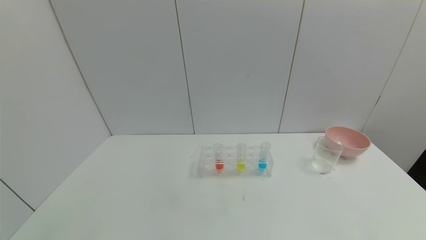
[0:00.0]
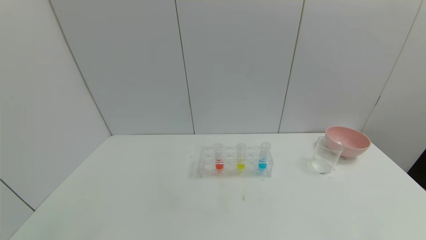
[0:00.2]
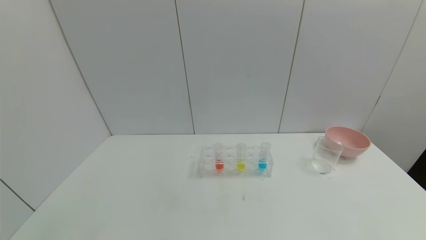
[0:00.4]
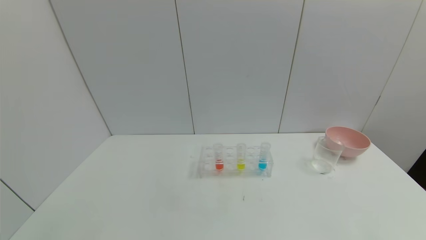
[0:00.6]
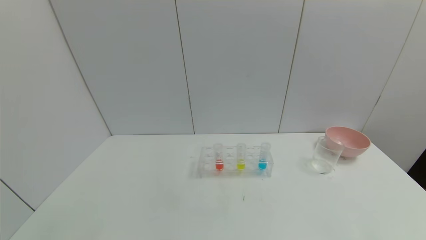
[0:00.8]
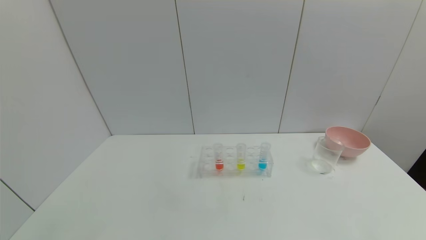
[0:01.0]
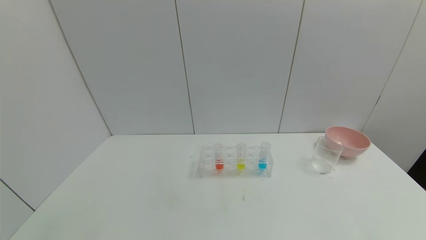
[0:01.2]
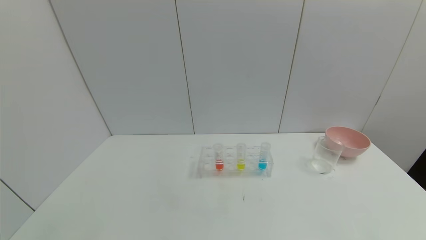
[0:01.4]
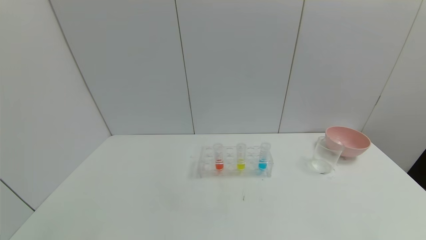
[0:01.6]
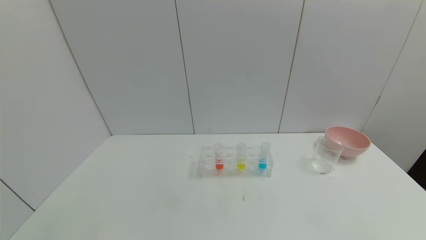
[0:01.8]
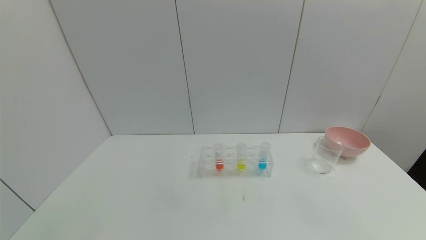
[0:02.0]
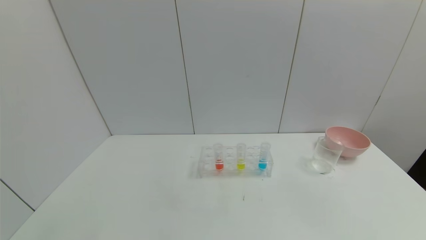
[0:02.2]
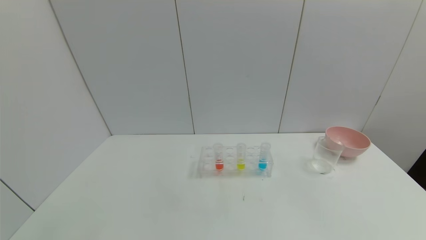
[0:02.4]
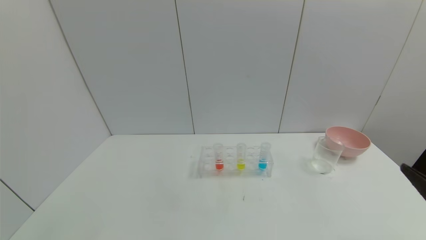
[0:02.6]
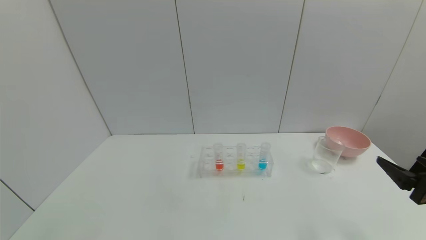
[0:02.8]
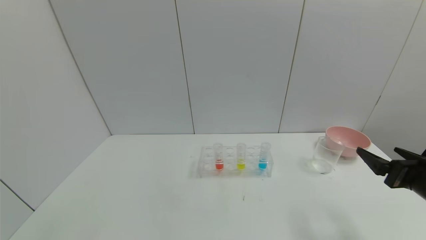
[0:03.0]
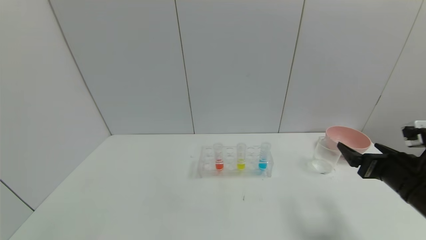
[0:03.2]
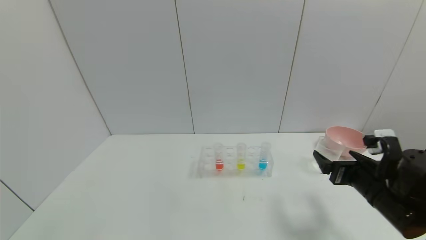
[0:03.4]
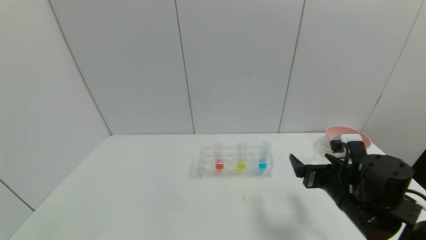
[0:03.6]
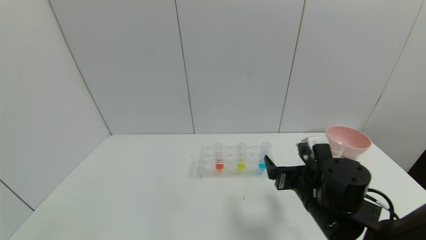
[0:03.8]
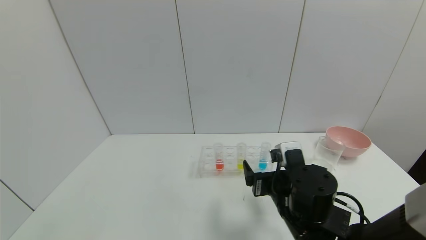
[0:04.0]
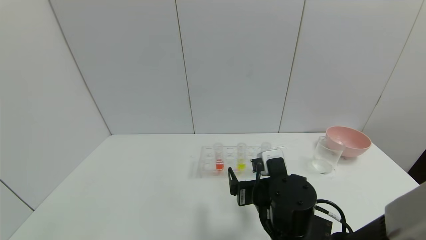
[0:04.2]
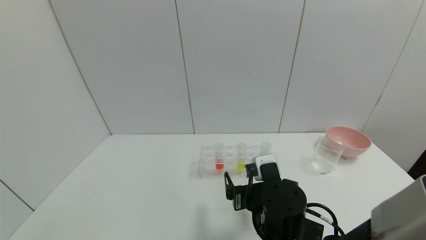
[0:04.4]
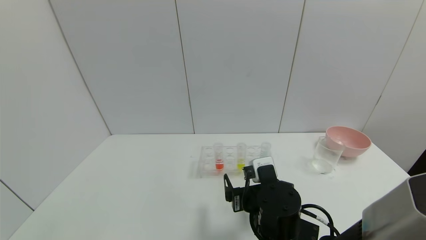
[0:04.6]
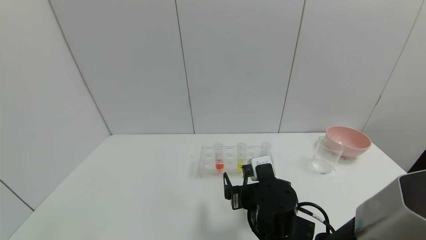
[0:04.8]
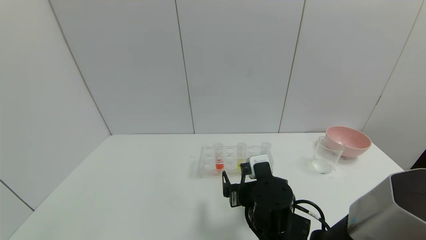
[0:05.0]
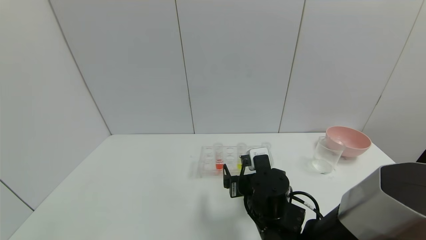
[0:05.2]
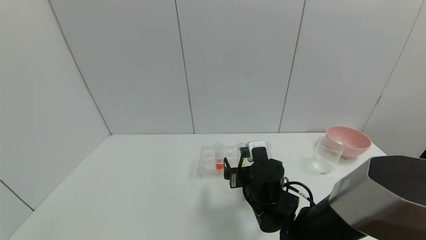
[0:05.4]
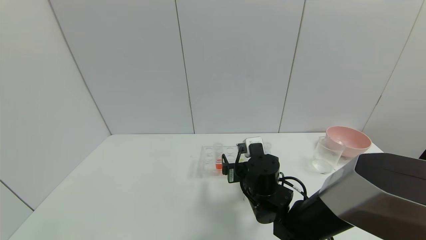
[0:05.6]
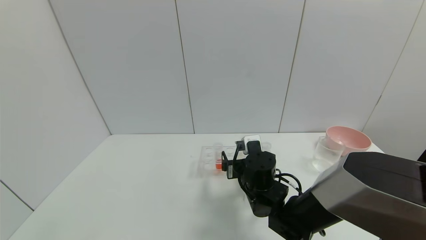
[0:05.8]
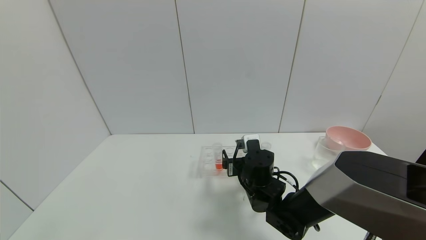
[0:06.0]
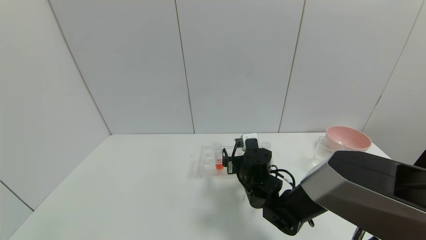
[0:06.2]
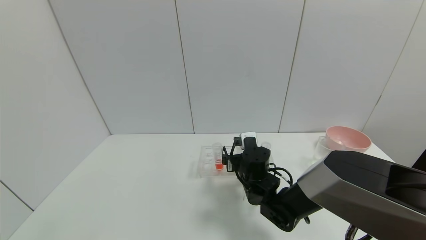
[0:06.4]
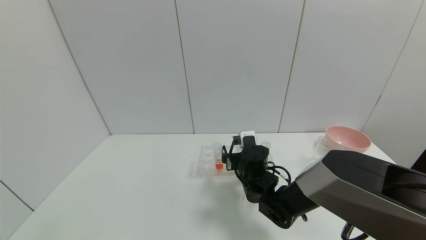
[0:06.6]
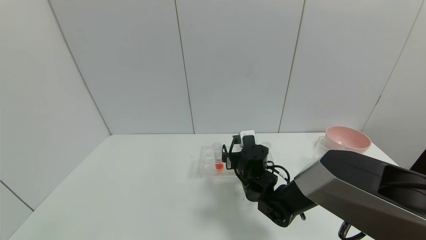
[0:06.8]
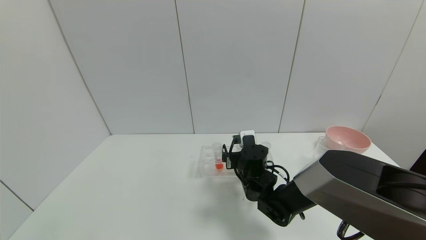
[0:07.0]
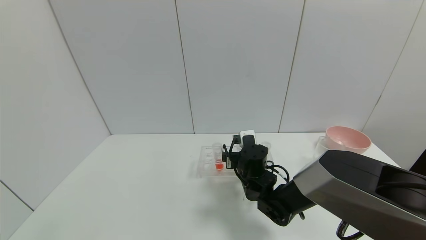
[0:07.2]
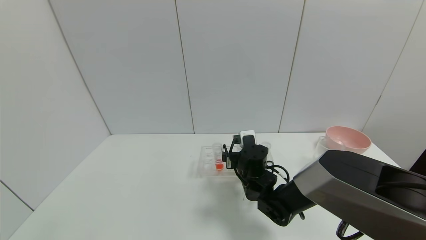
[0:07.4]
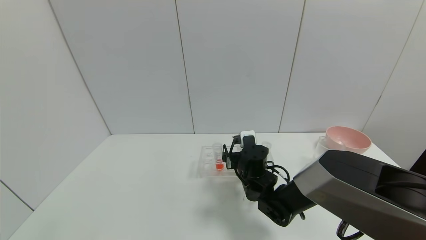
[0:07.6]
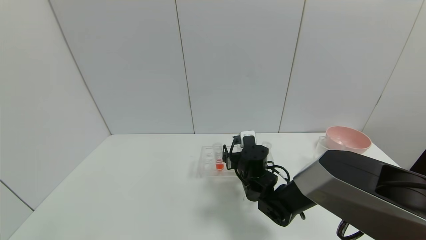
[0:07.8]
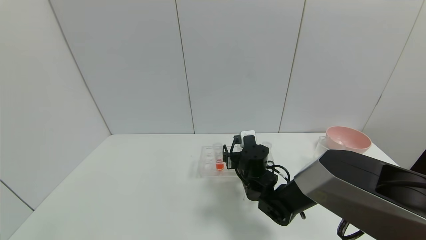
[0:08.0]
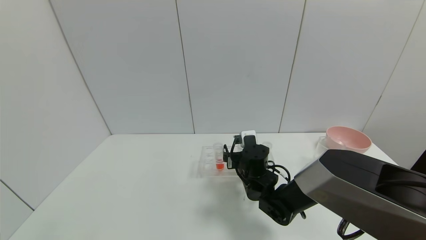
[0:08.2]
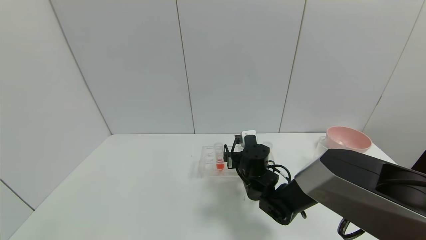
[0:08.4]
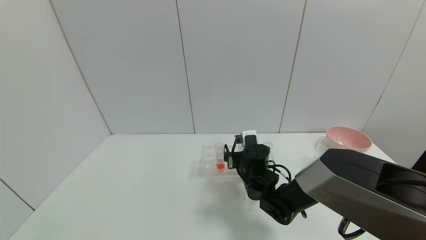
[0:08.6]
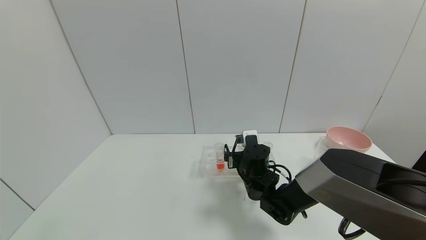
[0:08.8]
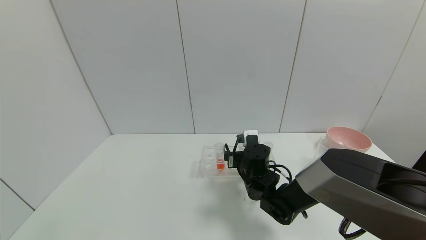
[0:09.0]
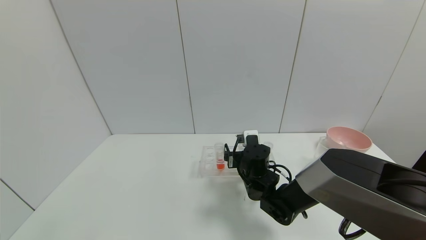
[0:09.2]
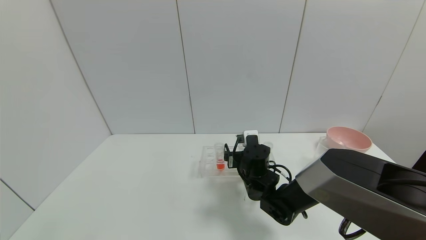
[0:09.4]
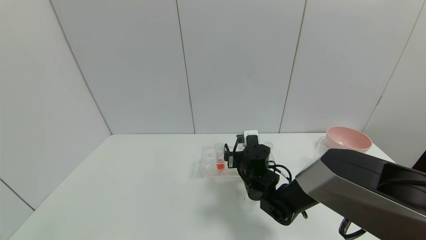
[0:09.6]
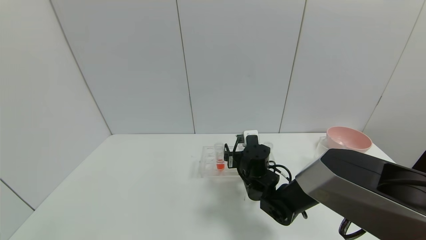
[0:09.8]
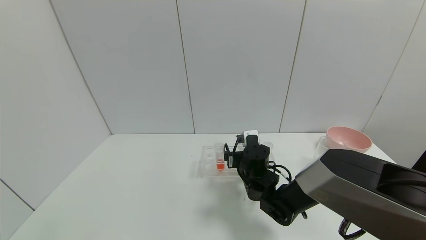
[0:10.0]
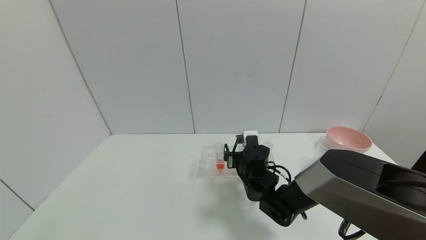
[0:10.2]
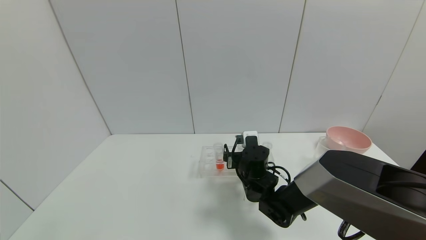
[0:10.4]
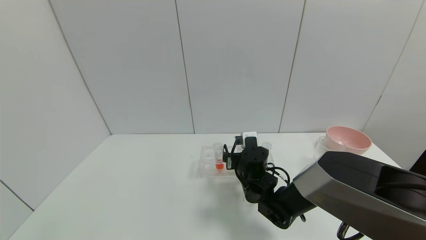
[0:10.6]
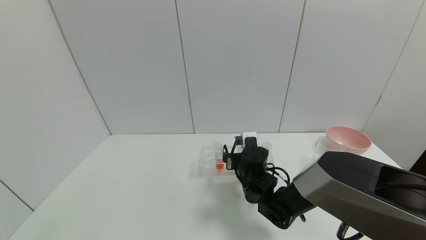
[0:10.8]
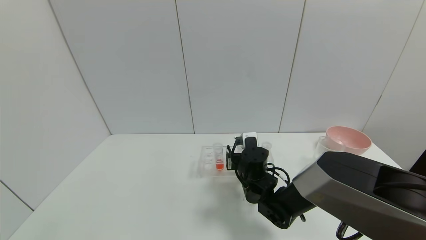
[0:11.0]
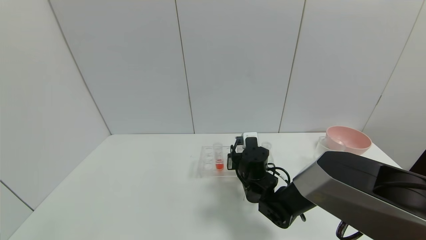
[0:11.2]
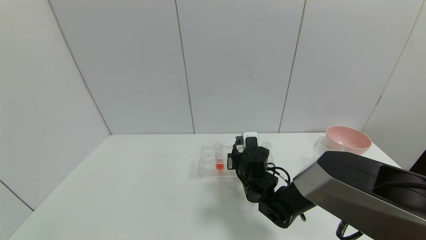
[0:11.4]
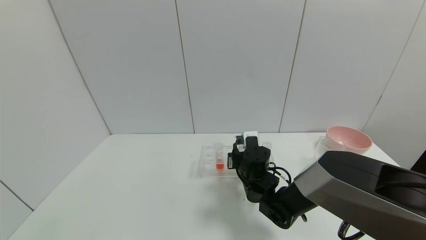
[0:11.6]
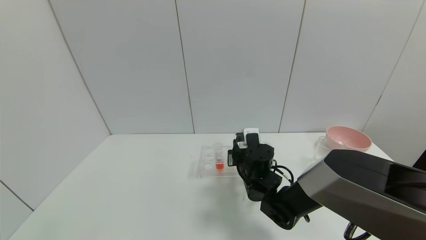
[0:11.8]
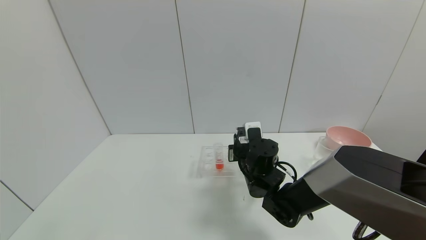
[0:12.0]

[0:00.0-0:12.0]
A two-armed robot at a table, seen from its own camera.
Task of the whole recording: pick up the test tube with yellow pigment and the test tube with blue pigment by grippers and pour them into the beaker.
Step, 0:00.0 to 0:11.2: Grasp the yellow reagent with the right gripper.
0:00.0 to 0:01.6: The two grippers keep their place.
0:01.6 to 0:03.0: The right gripper moves forward, about 20 cm.
0:03.0 to 0:04.4: The right gripper is displaced to the left by roughly 25 cm.
0:04.4 to 0:06.0: The right gripper goes approximately 10 cm forward.
0:06.0 to 0:10.4: The grippers stay close to where they were, moving slightly.
0:10.4 to 0:12.0: The right gripper closes up.

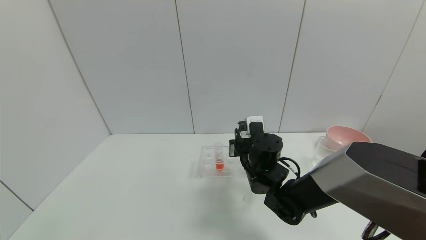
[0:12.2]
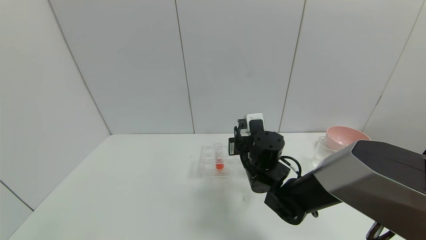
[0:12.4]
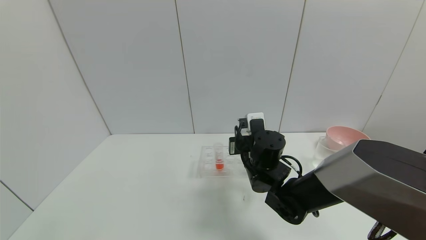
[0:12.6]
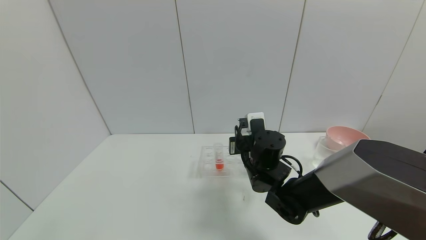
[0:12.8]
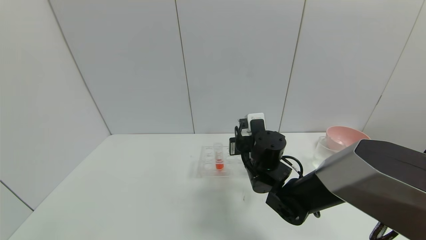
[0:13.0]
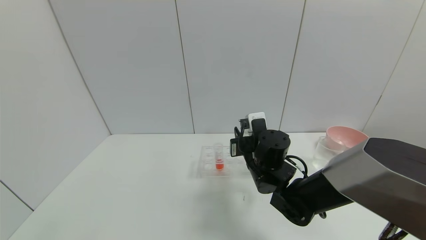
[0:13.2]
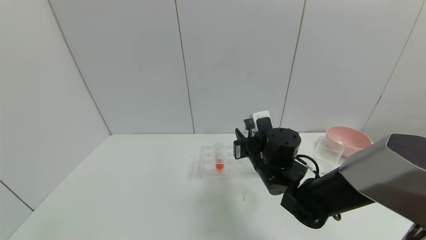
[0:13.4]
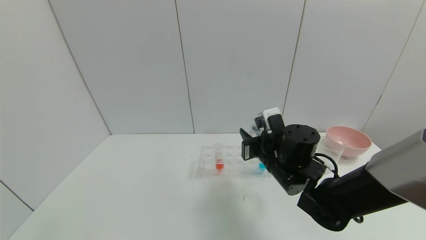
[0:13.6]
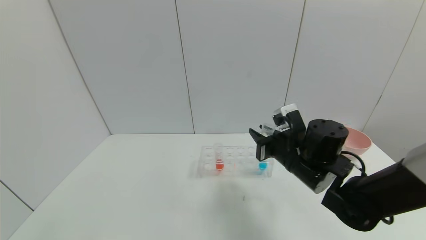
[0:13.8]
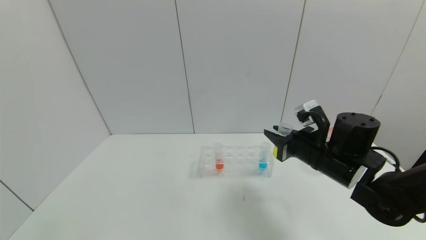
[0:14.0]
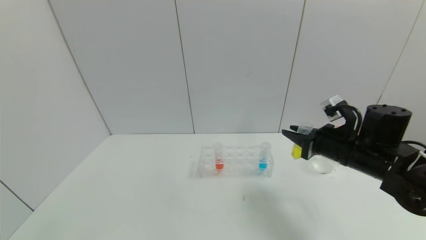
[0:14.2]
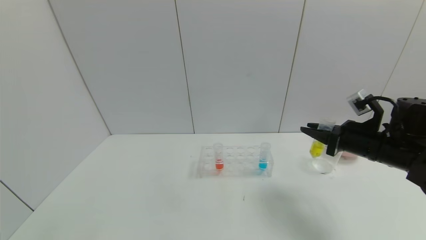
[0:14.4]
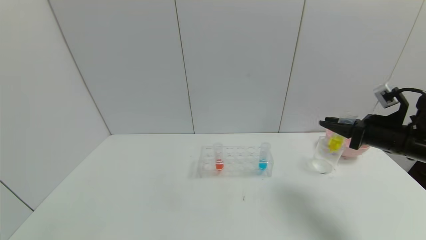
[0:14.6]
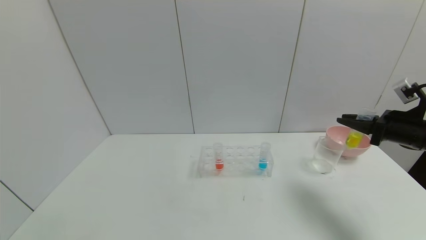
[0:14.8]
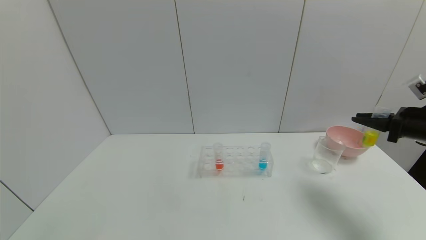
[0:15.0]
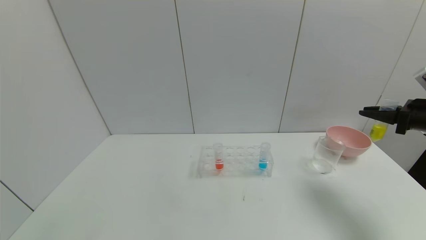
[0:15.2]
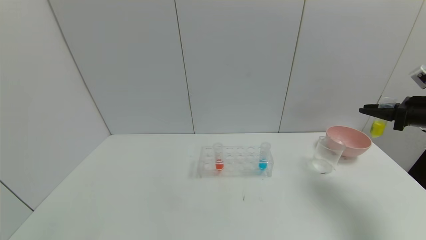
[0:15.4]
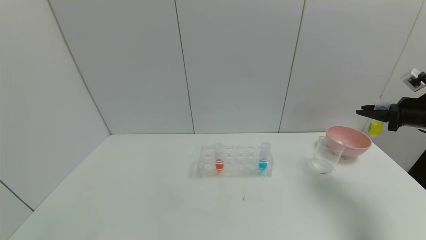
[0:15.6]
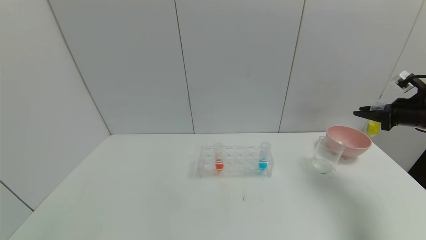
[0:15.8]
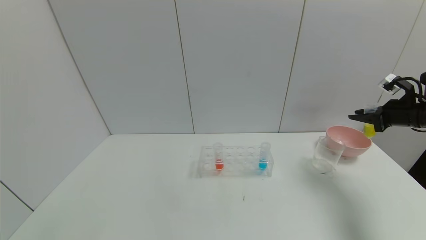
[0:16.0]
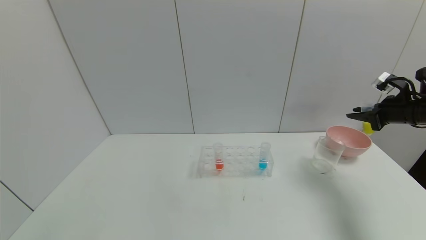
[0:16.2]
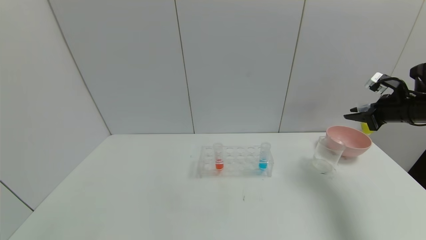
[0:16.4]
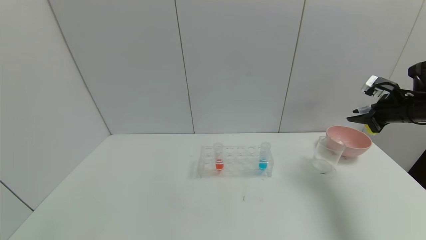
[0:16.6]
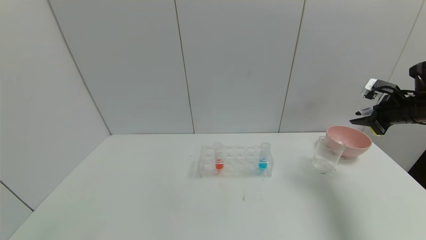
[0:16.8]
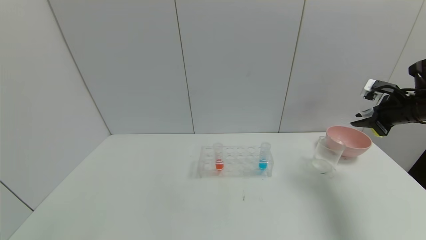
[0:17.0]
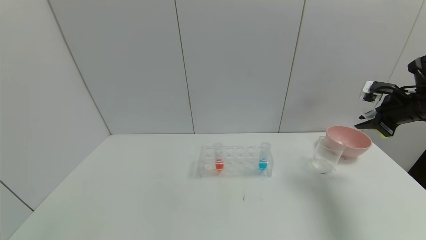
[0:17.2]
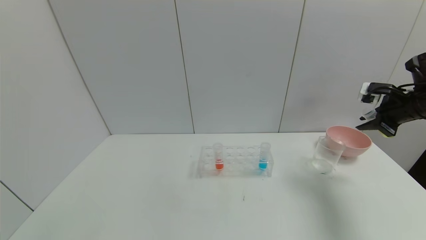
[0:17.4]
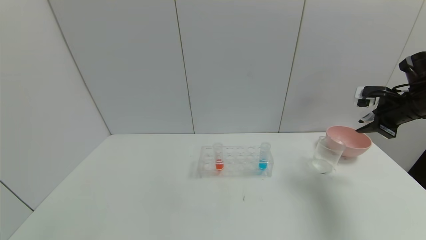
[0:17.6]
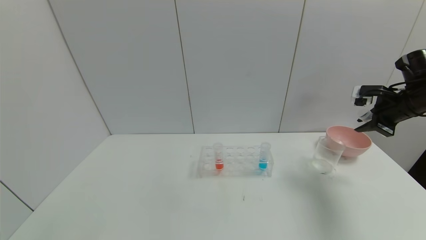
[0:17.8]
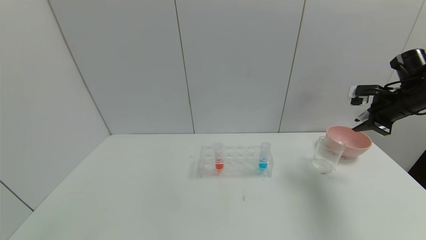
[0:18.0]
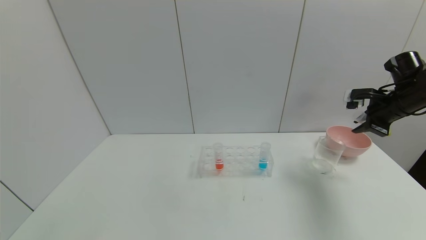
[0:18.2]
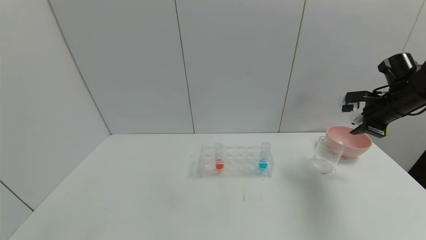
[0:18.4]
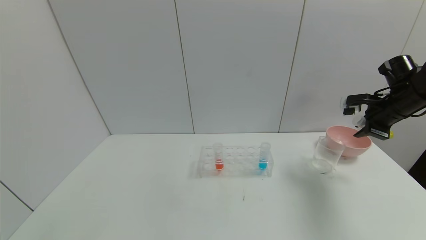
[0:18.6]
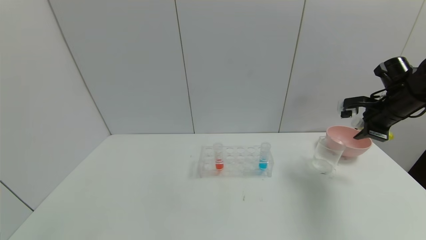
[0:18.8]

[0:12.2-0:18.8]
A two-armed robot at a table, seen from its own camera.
Task of the whole recording: pick up the test tube with yellow pigment and the test tube with blue pigment by grippers and pour them into the beaker.
0:12.2 to 0:13.8: The right gripper goes approximately 10 cm to the right.
0:13.8 to 0:15.4: The right gripper heads to the right, covering approximately 30 cm.
